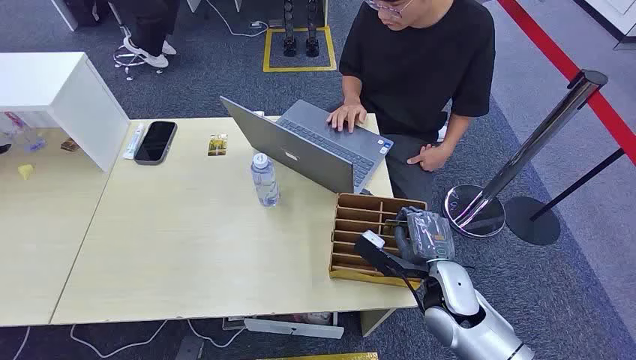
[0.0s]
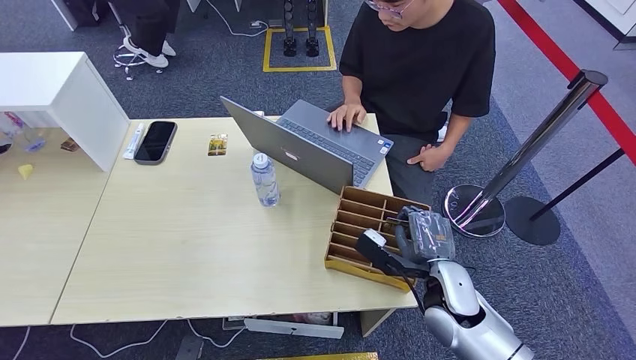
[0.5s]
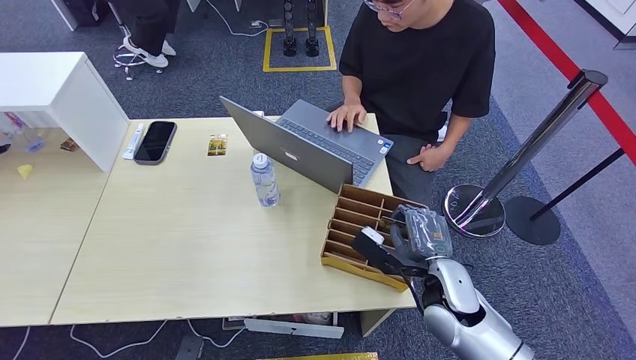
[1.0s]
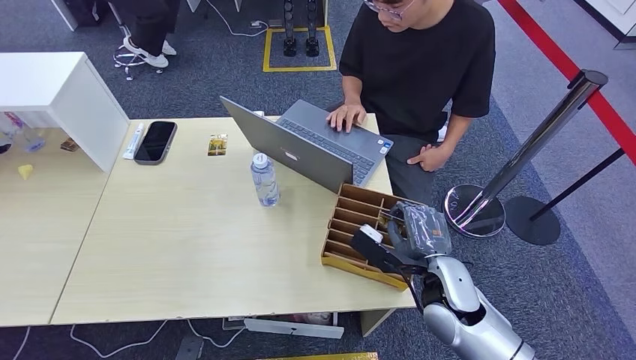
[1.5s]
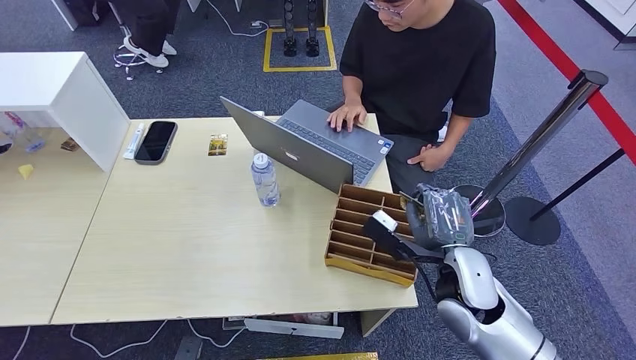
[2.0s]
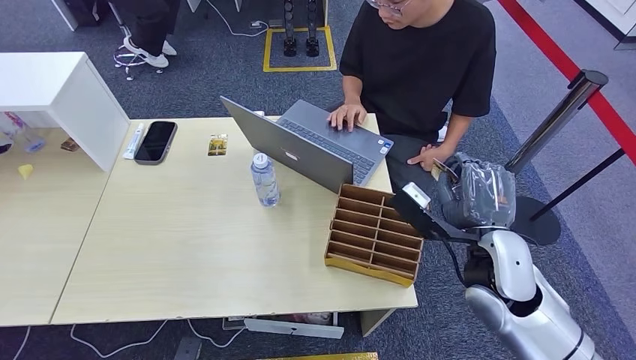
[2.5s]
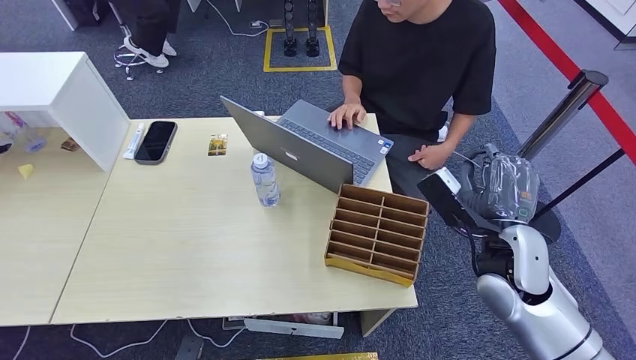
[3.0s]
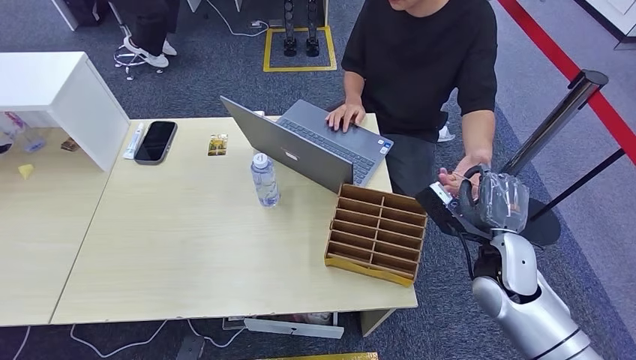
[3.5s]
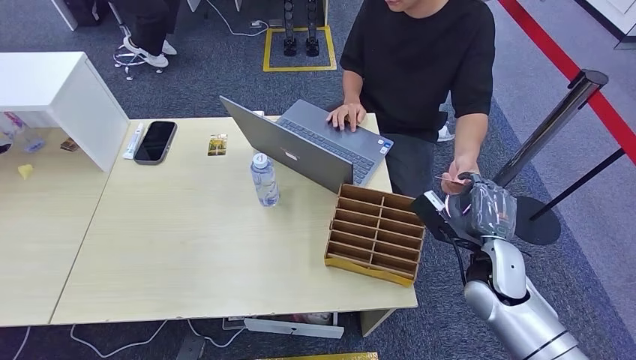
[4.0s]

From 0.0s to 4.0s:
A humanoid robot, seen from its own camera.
Task of the whole recording: Pick up the card and hand it over to the target person.
Step, from 0.0s to 1.5s: Pick up the key card from the card box.
Step, from 2.0s to 4.0s: Hand the key card to the target.
From 2.0s to 4.0s: The right hand moves downward, approximately 10 cm.
